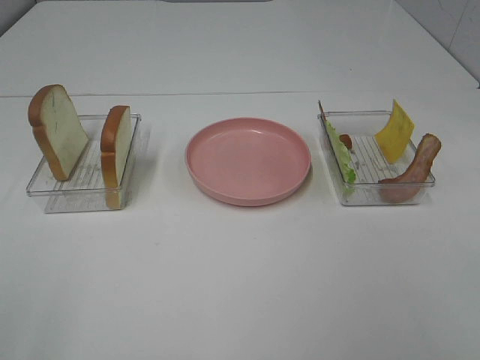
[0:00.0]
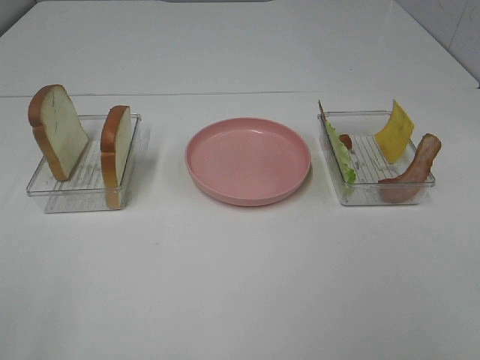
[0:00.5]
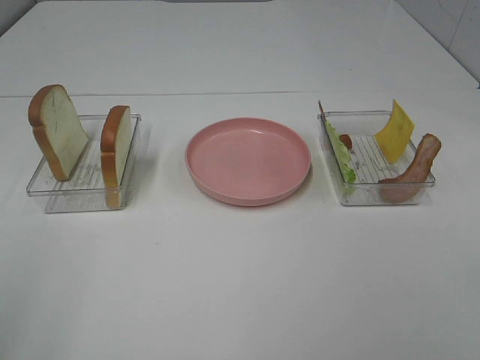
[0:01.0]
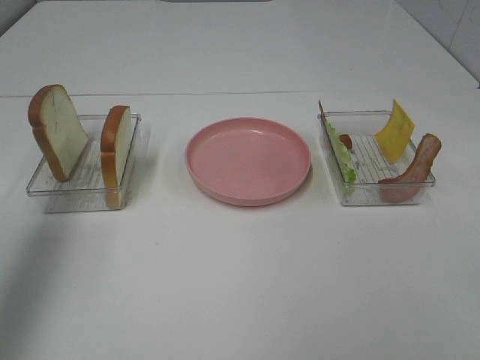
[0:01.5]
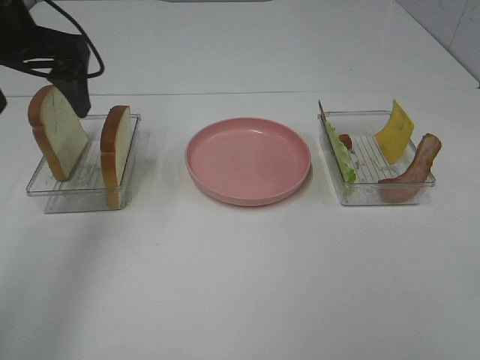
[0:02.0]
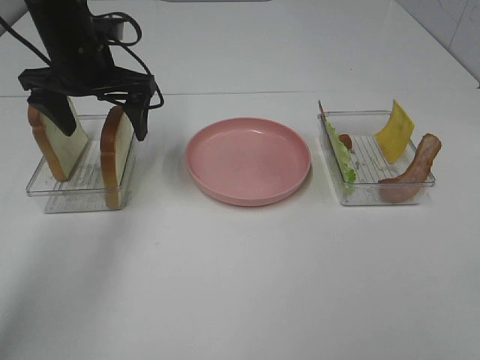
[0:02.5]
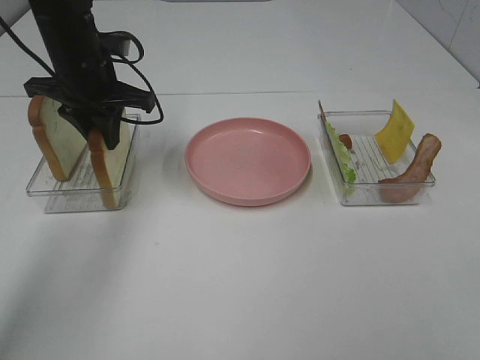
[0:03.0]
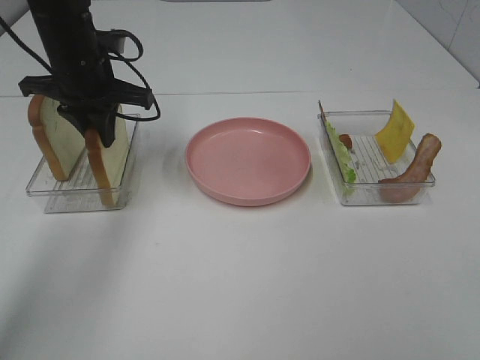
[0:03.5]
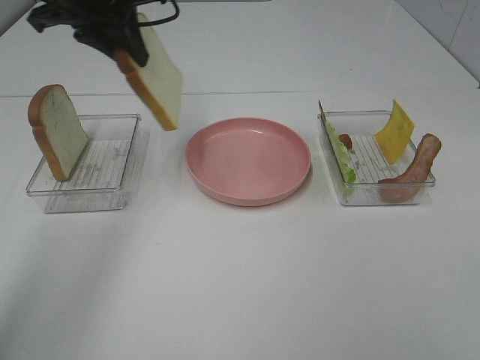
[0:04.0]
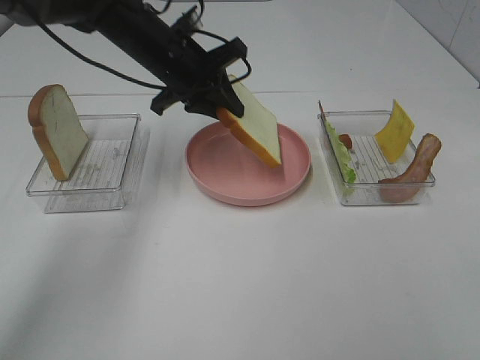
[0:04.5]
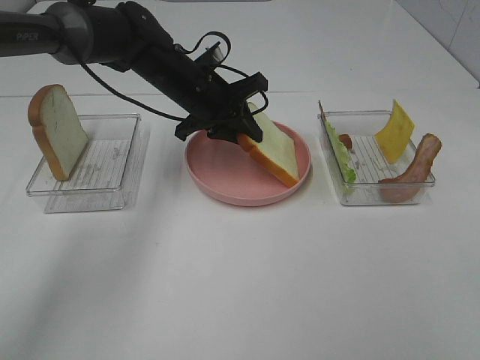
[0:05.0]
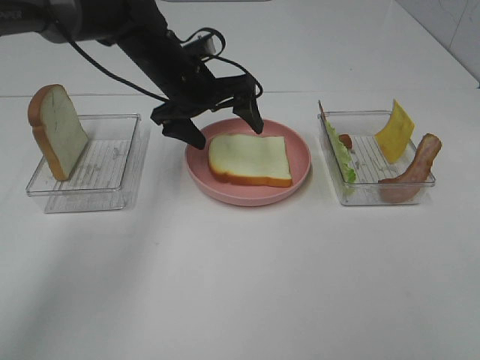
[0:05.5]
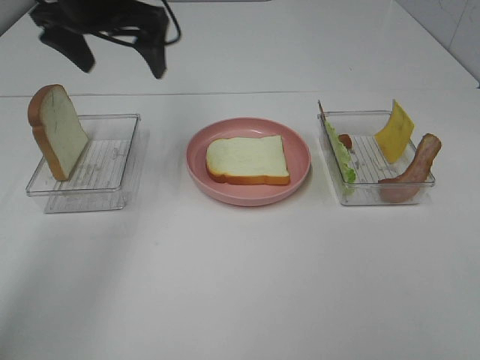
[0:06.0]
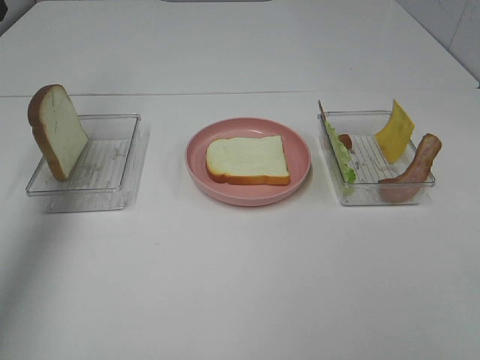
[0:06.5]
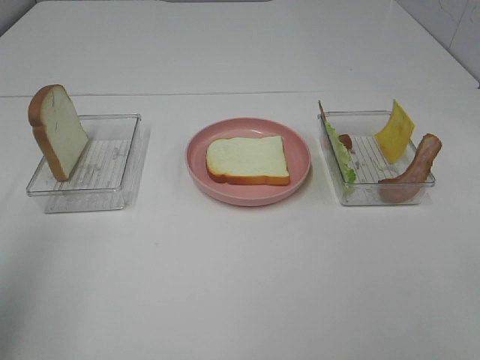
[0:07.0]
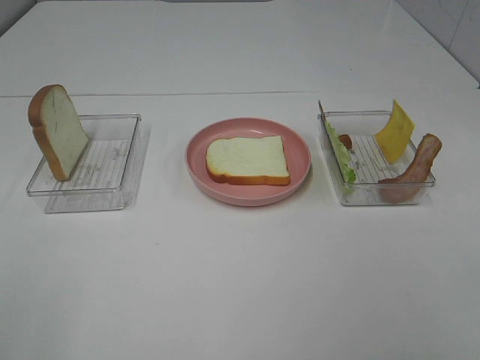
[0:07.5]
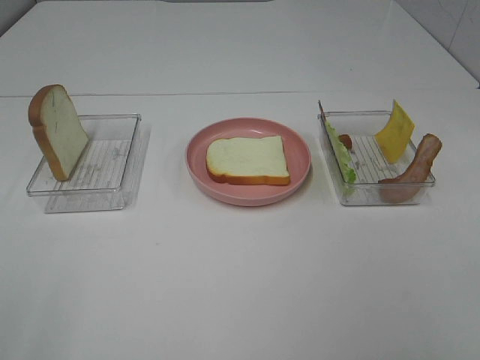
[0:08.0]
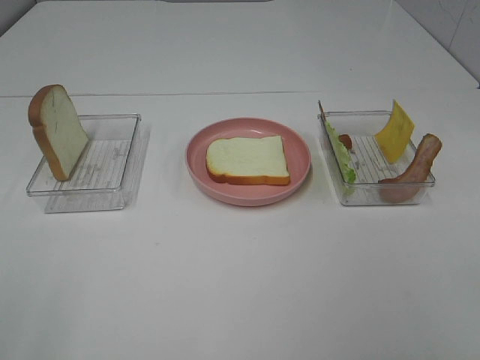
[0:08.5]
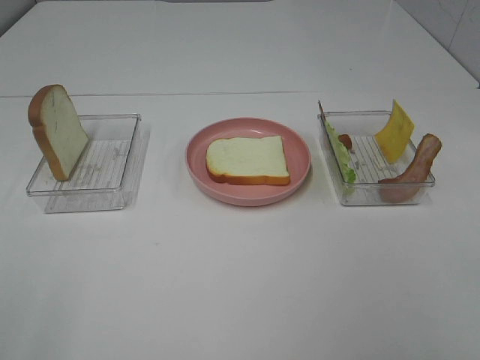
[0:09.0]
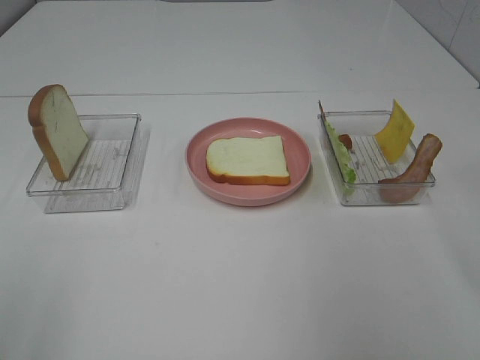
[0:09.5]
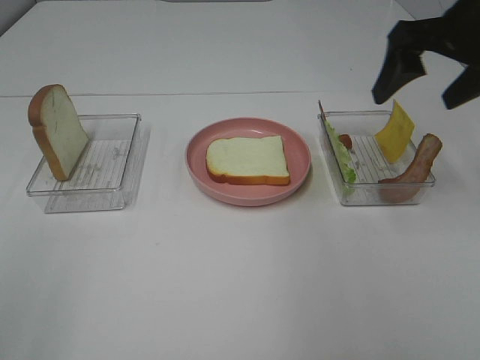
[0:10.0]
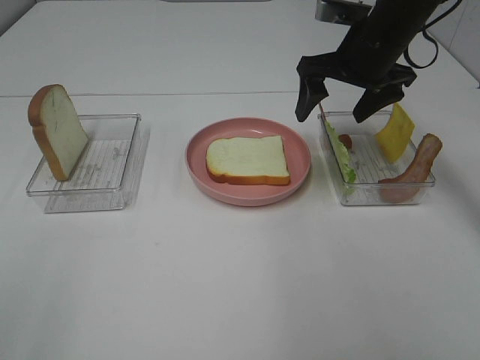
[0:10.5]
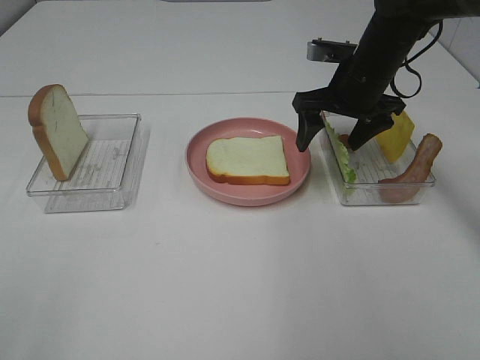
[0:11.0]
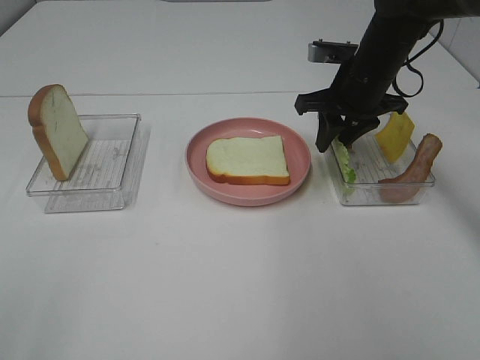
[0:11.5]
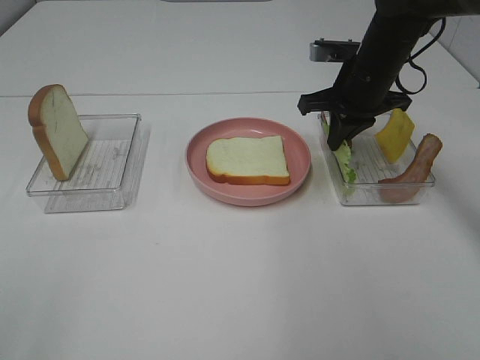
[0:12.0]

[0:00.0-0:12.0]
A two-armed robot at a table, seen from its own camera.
Task of the whole recording: Make sandwiches.
Step, 0:00.0 to 0:03.0: Left hand:grab the bread slice.
Step, 0:03.5 to 0:05.5: Left hand:place the bread slice on the plate.
Step, 0:06.0 to 0:12.0: Left hand:grab the lettuce slice.
0:00.0 to 0:02.0: The left gripper moves forward, some 35 cm.
0:02.0 to 0:04.0: The left gripper is displaced to the right and forward by some 10 cm, moves about 10 cm downward and comes back, and closes up.
0:04.0 to 0:06.0: The left gripper moves about 15 cm downward and comes back, and opens up.
0:06.0 to 0:08.0: The left gripper goes about 40 cm backward.
0:08.0 to 0:10.0: The right gripper travels forward by some 35 cm.
0:10.0 to 0:12.0: The right gripper travels downward, forward and to the left by about 15 cm, and closes its fingers.

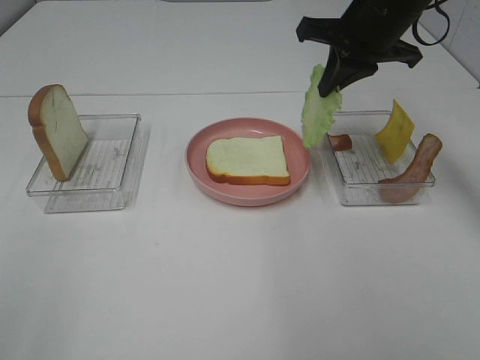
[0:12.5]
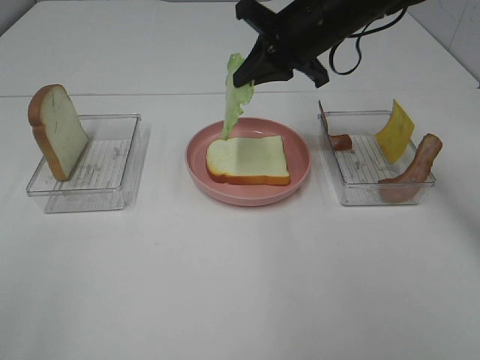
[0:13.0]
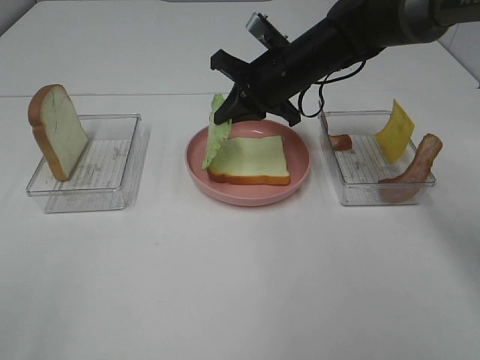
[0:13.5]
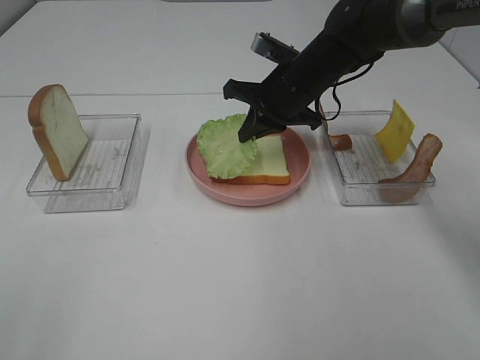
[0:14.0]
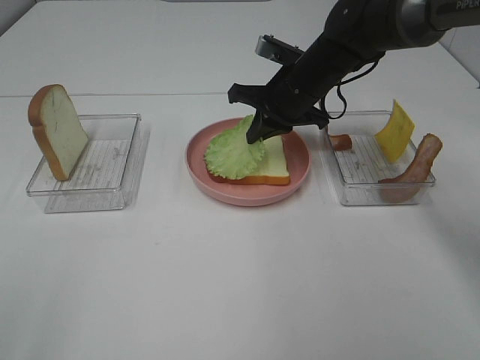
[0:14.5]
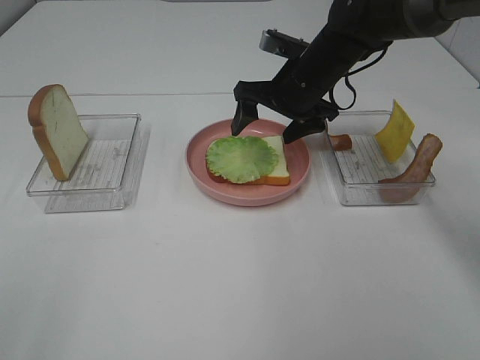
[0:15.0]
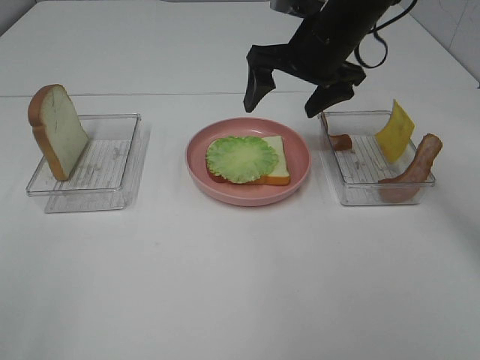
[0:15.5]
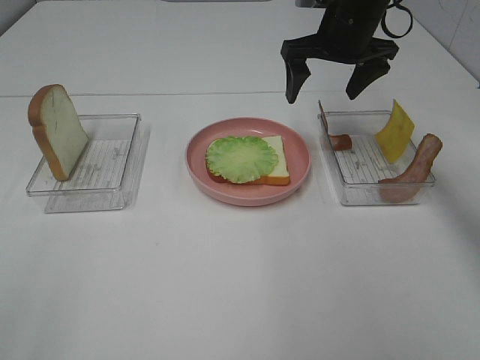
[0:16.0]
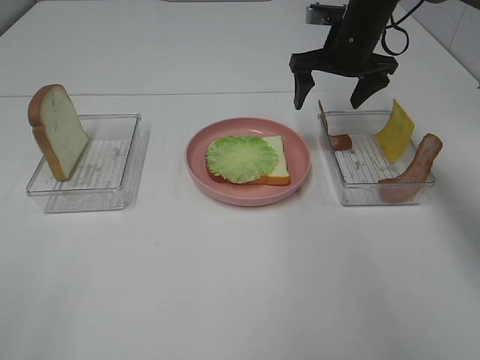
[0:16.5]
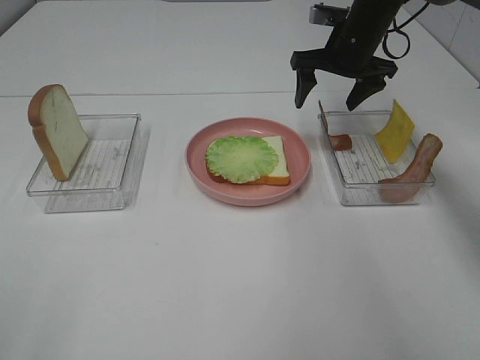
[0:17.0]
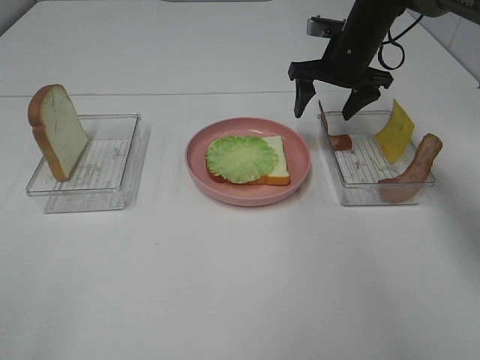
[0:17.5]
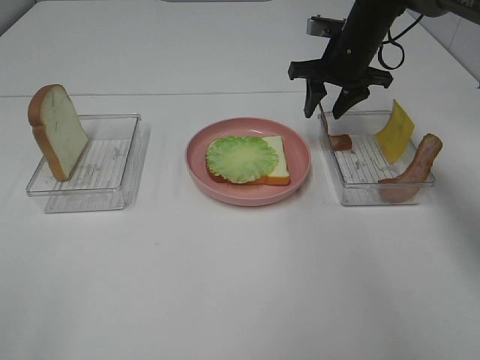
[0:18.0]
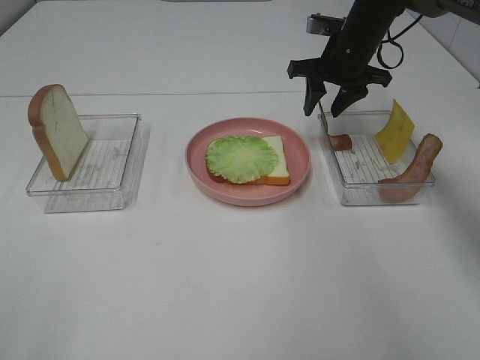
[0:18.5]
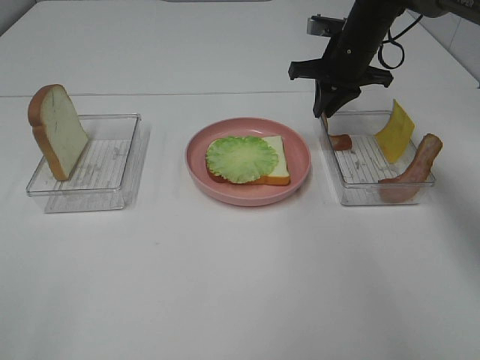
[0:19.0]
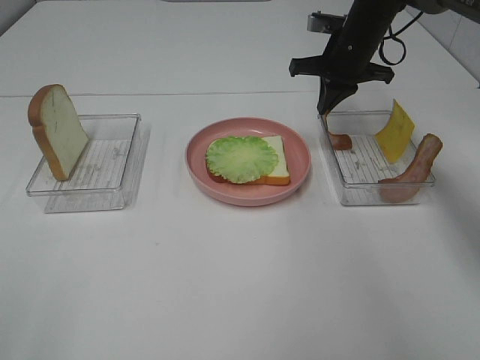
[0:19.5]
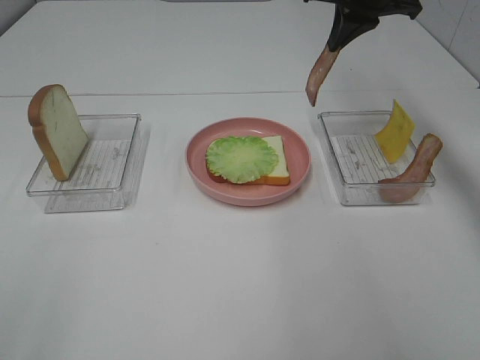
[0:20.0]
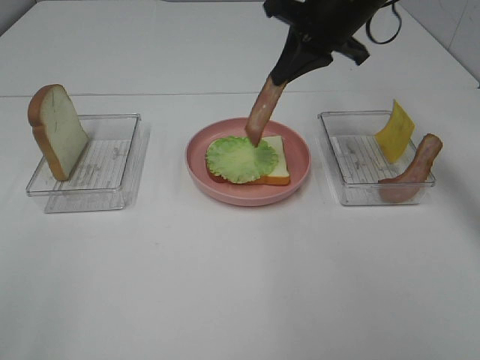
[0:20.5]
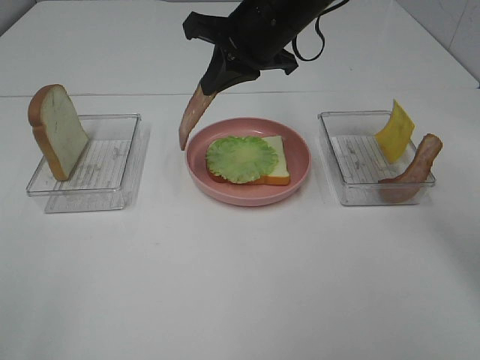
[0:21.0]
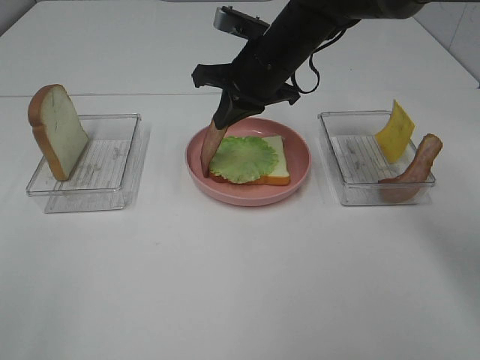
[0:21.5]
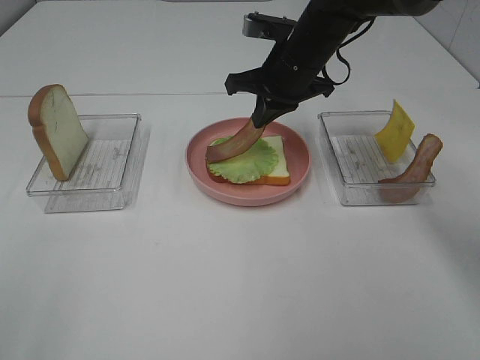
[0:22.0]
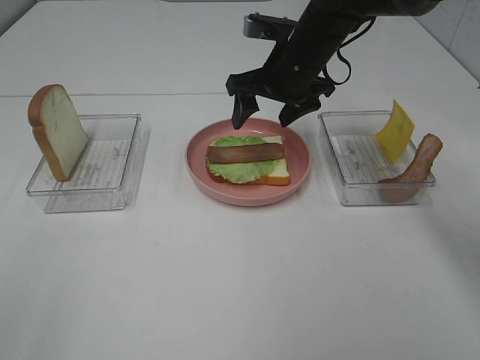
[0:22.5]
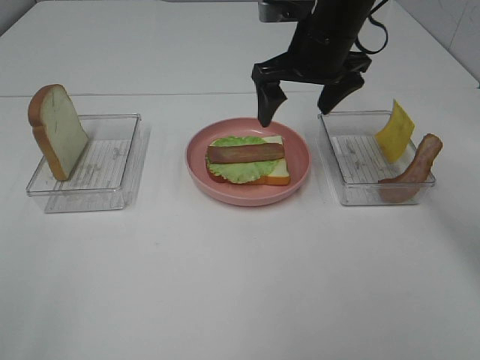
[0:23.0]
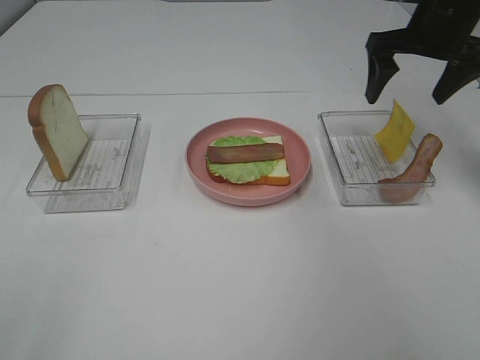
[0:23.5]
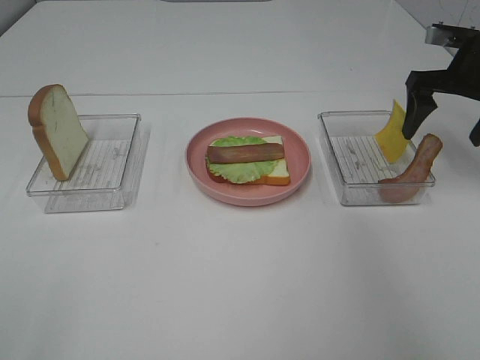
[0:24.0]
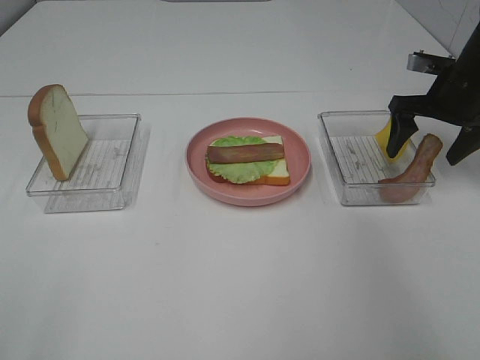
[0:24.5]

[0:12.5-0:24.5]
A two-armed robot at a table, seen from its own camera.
Task of the whole recording: Make sandwiches.
Step, 0:15.5 to 0:19.0: Right hand:grab the bacon.
Step, 0:19.5 to 0:22.5: Right hand:place bacon on lettuce slice.
0:12.5 to 0:14.5: The right gripper heads downward and to the left, covering approximately 15 cm.
0:14.5 to 0:16.5: The right gripper goes about 10 cm to the right and forward, and opens its fingers.
0:16.5 to 0:18.5: The right gripper closes its fingers.
0:18.5 to 0:20.5: The right gripper heads upward and backward, covering approximately 10 cm, and closes.
0:20.5 to 0:22.5: The right gripper goes approximately 10 cm downward, and opens.
0:22.5 to 0:24.5: The right gripper heads to the right, covering some 20 cm.

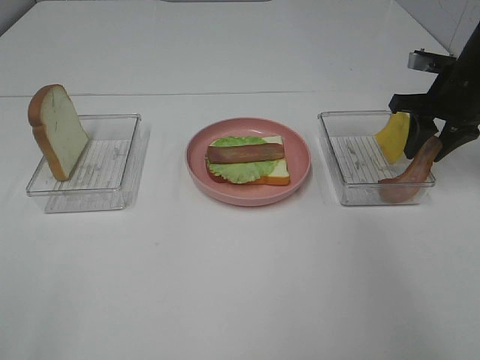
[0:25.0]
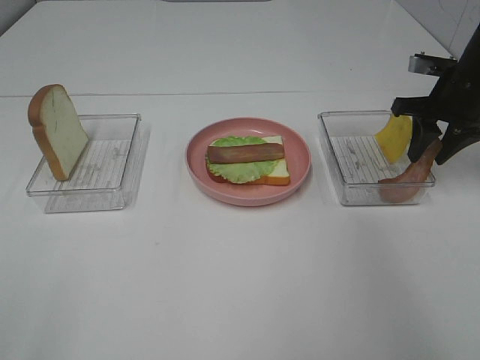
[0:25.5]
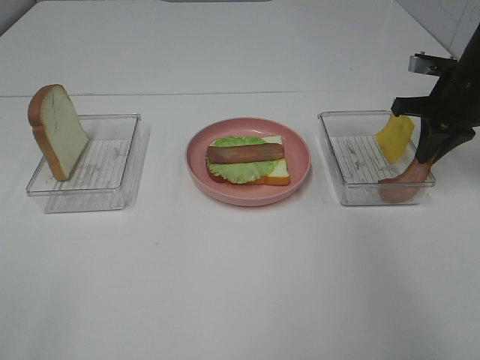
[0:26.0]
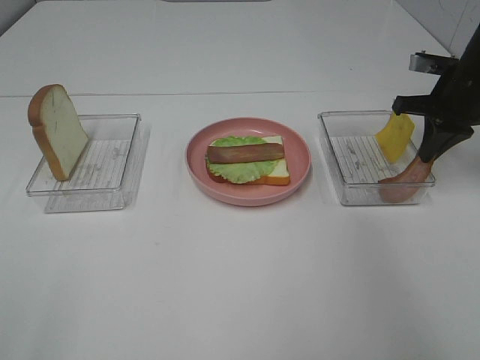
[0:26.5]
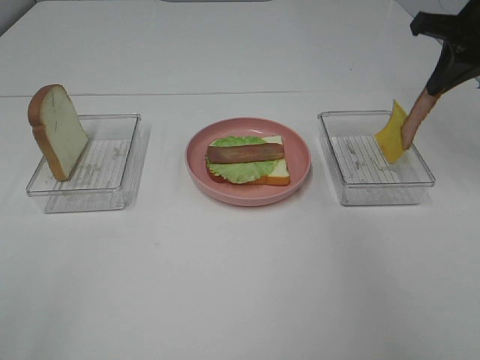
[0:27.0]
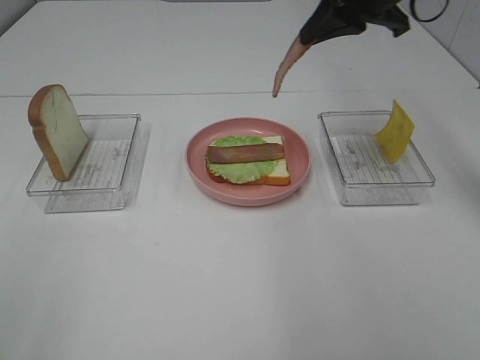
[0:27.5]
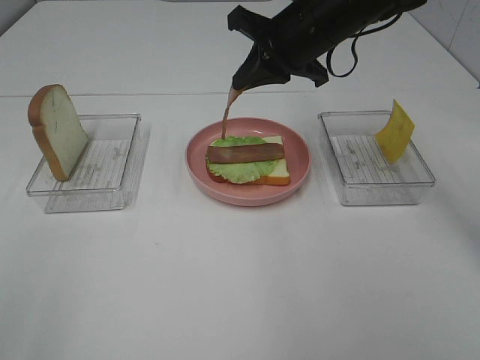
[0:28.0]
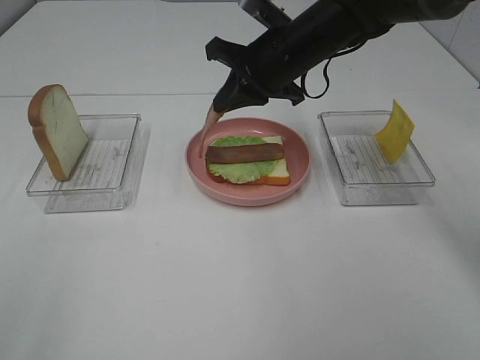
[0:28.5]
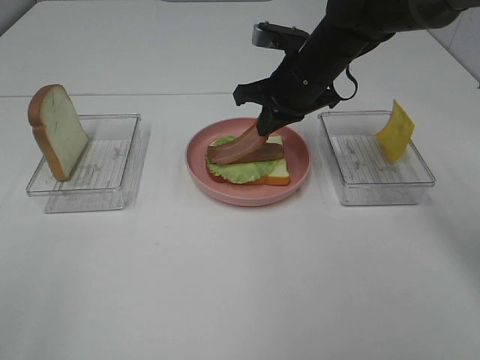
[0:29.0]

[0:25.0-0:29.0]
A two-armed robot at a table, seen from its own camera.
Task of the whole recording: Make sandwiches.
0:25.0 to 0:27.0: The right gripper travels upward by roughly 10 cm, and closes up.
0:27.0 to 0:29.0: The right gripper travels to the left and downward by approximately 20 cm.
